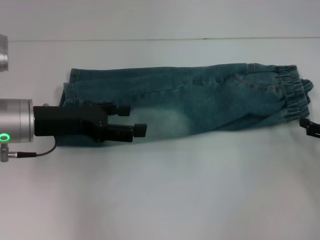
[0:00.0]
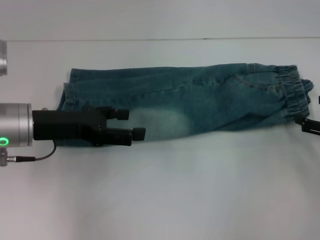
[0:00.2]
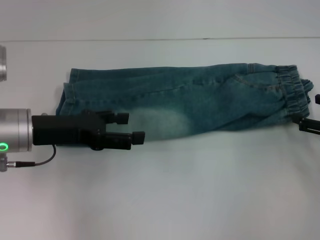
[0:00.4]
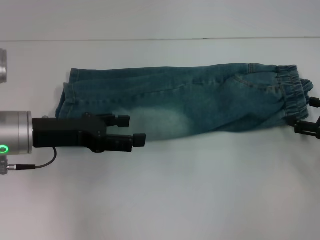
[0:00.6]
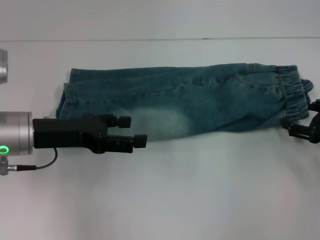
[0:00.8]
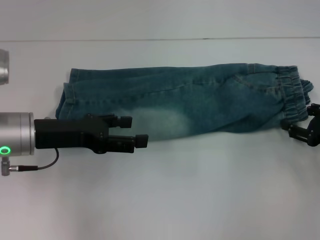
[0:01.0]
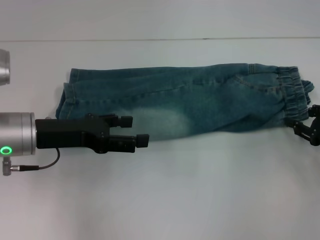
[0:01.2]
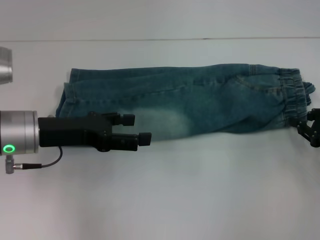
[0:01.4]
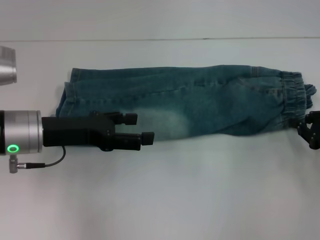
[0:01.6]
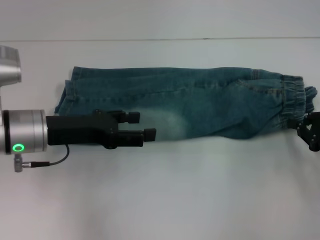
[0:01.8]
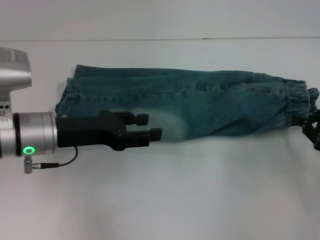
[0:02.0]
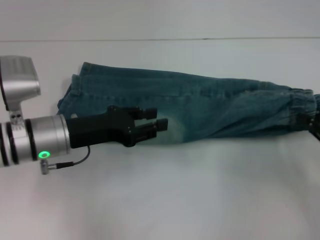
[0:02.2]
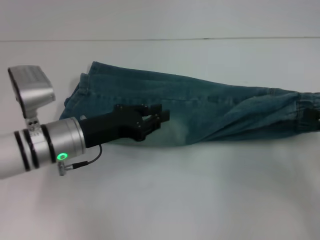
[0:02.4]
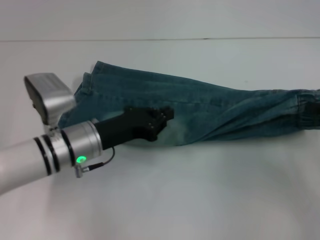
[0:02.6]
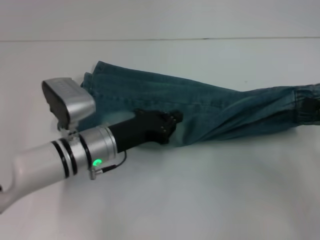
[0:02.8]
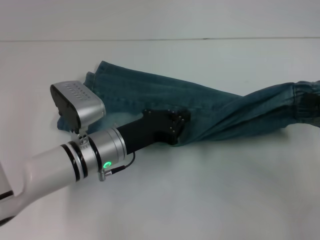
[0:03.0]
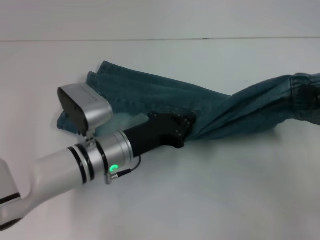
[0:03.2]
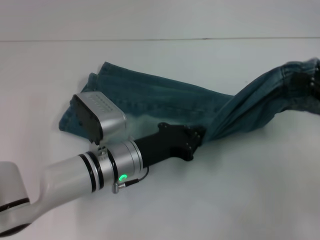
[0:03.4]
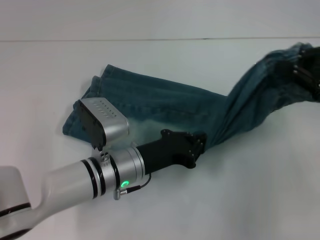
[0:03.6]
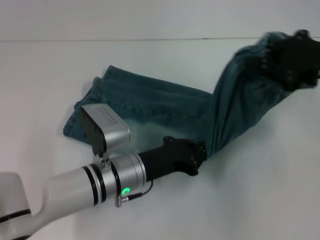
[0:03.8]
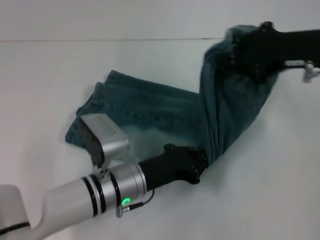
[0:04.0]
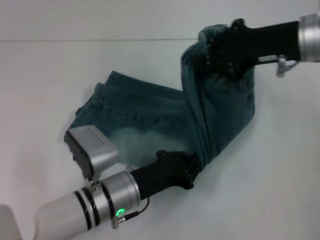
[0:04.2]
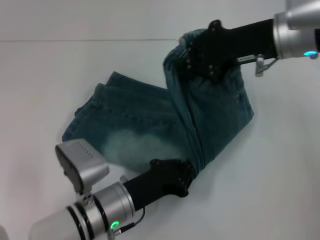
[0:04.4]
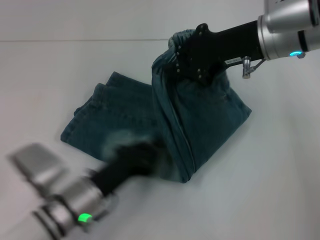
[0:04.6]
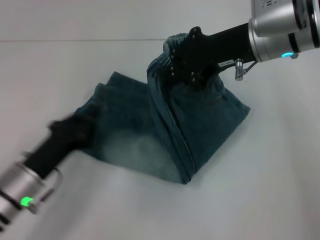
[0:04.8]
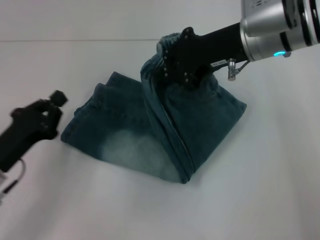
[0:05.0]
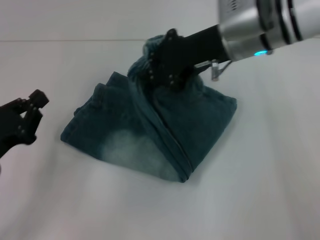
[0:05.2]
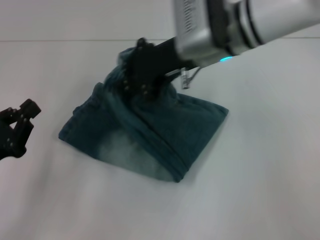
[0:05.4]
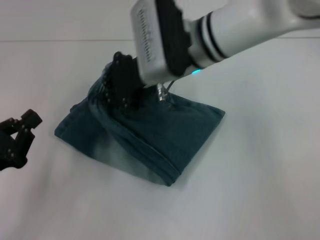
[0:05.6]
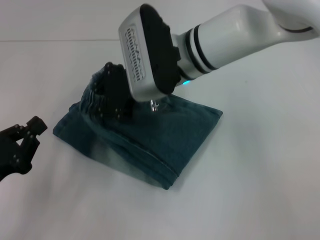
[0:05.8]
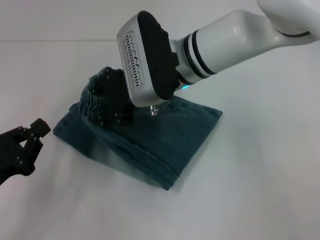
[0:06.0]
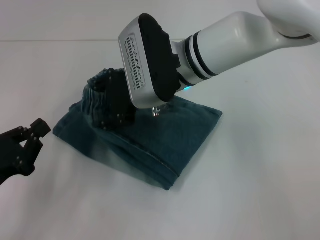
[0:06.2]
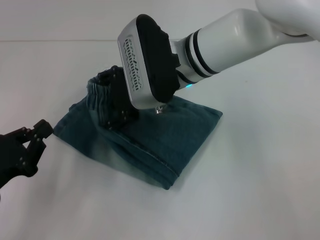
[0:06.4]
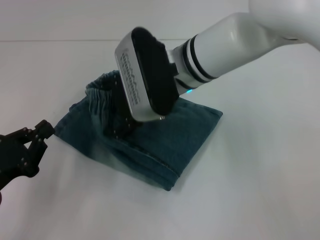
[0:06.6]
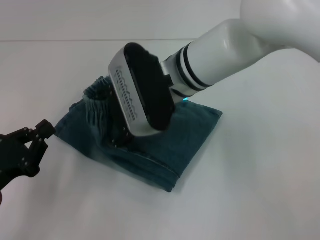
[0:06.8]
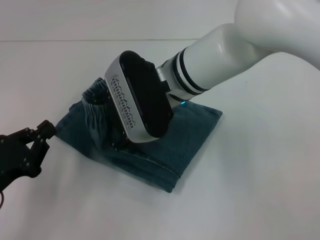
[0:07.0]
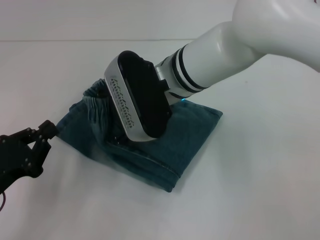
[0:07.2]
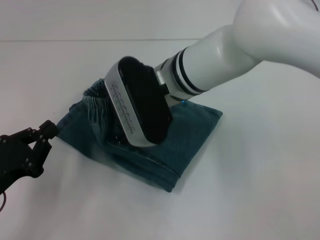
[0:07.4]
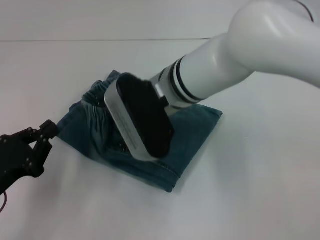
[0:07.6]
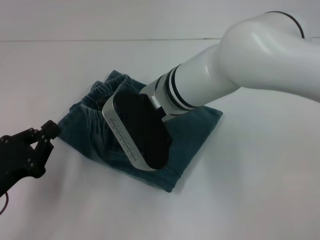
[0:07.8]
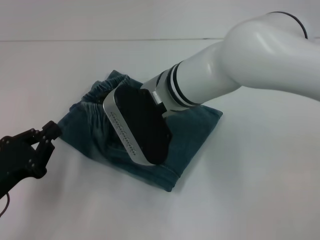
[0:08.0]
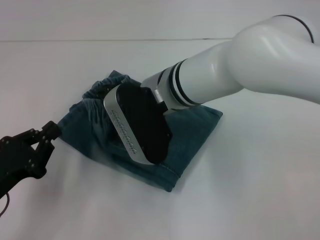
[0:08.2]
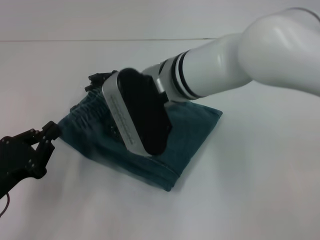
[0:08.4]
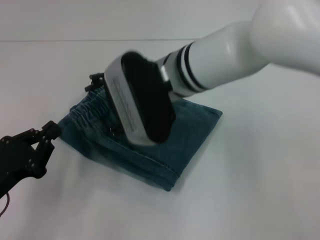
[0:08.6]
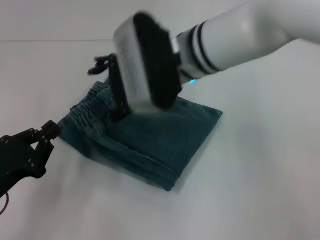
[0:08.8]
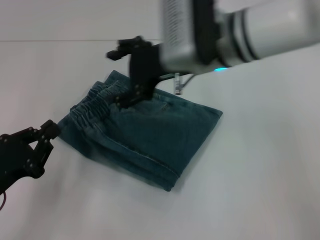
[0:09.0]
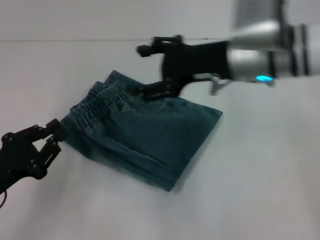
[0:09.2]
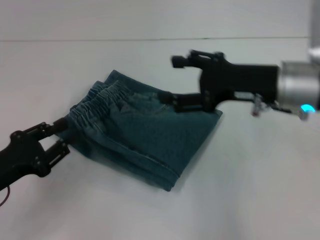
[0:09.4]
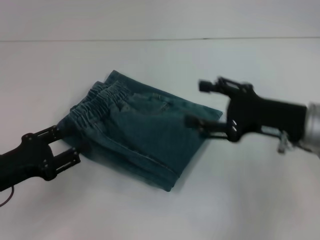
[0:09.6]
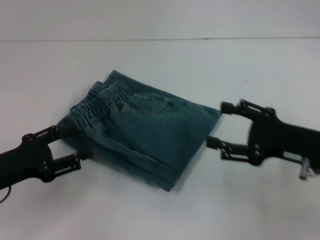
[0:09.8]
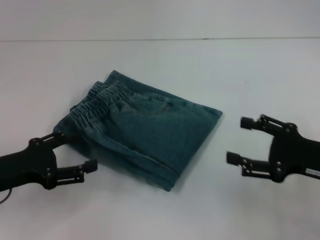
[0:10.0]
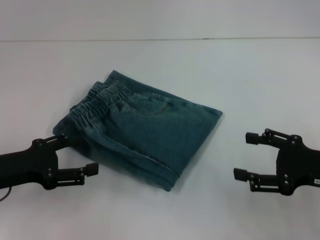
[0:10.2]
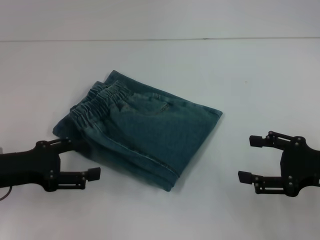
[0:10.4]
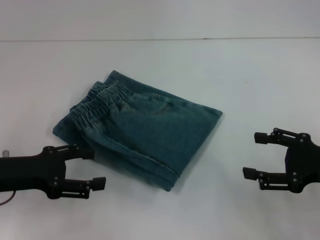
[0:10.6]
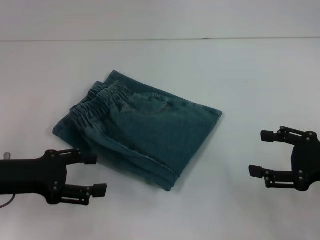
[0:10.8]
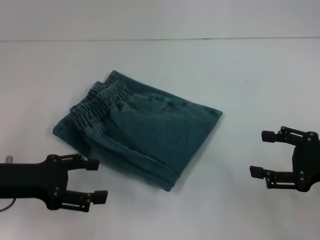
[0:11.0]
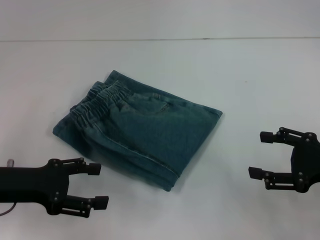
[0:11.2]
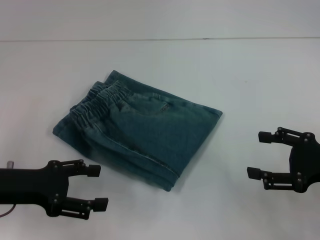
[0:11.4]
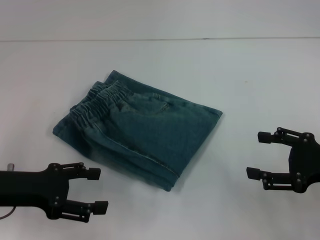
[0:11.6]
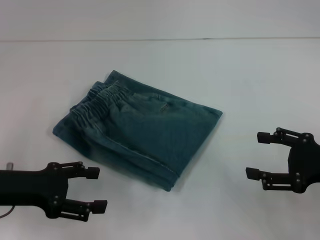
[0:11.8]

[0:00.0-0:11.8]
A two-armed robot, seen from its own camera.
Step, 0:02.0 to 0:04.2: Press the middle of the pants with your left hand.
Step, 0:04.4 to 0:08.4: Fold to the left with your right hand.
0:00.0 to 0:01.4: The right gripper closes.
0:01.4 to 0:03.0: The right gripper heads upward, covering about 10 cm, and closes up. The left gripper goes approximately 15 cm to the right and downward, and closes up.
0:03.0 to 0:04.4: The left gripper shifts approximately 10 cm backward, while the right gripper goes roughly 20 cm to the left and forward.
0:04.4 to 0:06.0: The two grippers go some 15 cm to the left.
0:06.0 to 0:07.4: The right gripper opens up.
0:07.4 to 0:08.8: The grippers make only small movements.
0:08.8 to 0:10.4: The left gripper moves forward, about 5 cm, and opens; the right gripper moves to the right and backward, about 30 cm.
0:10.4 to 0:11.8: There are only small adjustments of the grippers.
